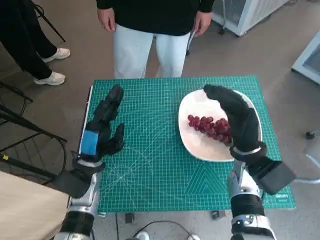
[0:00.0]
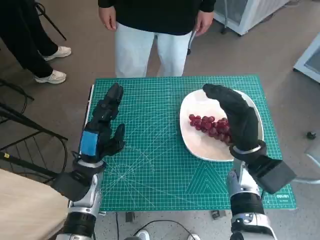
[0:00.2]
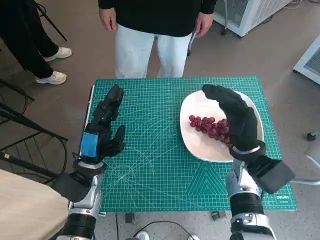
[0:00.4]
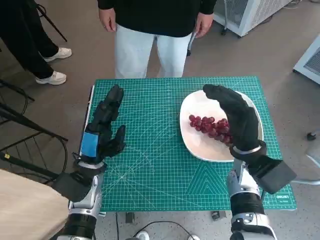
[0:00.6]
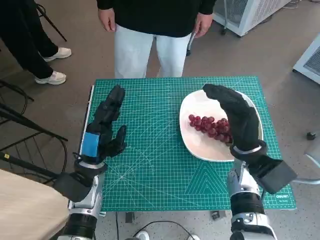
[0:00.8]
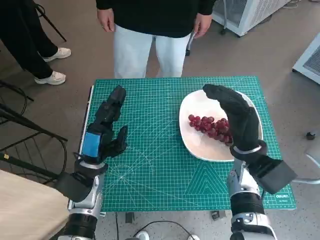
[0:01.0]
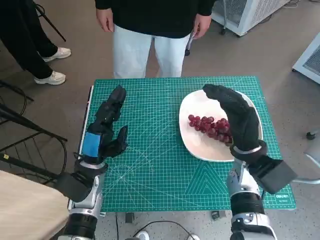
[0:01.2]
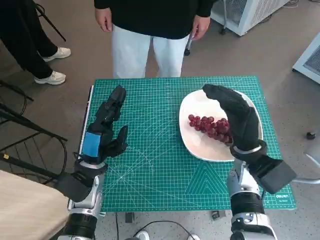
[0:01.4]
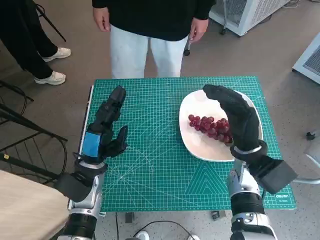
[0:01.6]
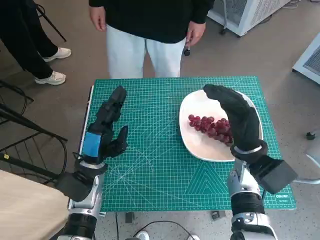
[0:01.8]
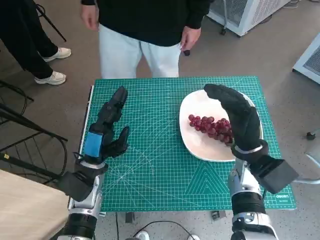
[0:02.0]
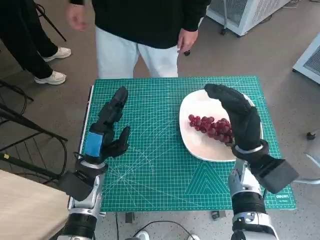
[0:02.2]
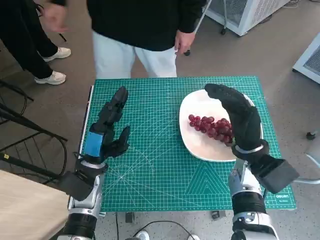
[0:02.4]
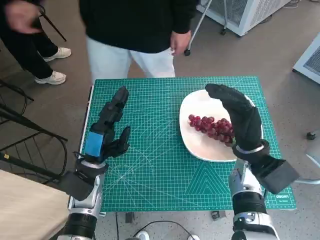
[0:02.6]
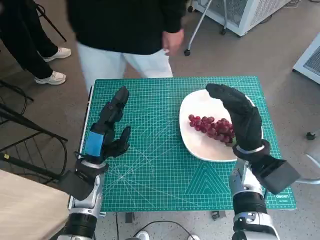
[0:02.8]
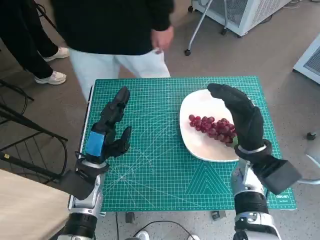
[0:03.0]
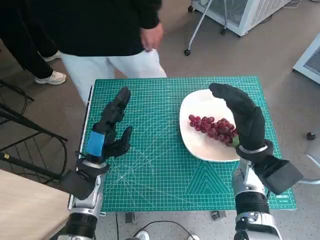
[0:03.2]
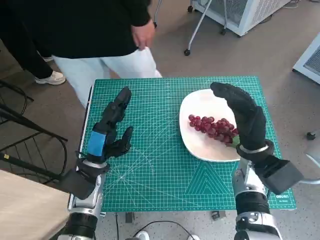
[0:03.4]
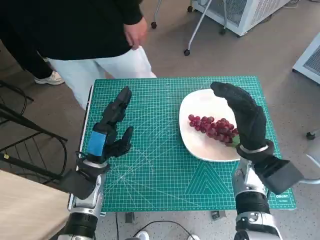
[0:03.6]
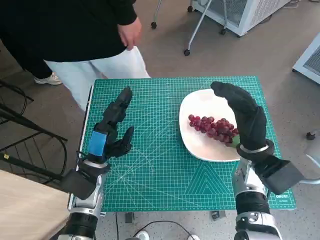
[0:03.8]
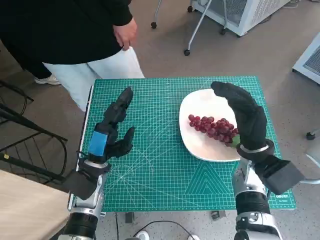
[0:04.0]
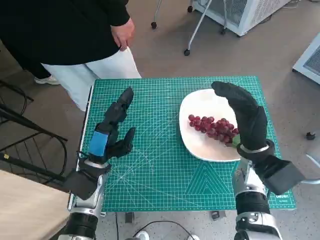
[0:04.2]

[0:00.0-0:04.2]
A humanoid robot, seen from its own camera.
Task of the whole recording: Pick up the grapes and put them on the plate.
0:00.0 to 0:04.2: Neither hand changes place.
